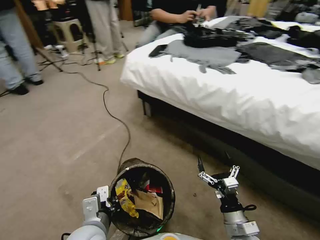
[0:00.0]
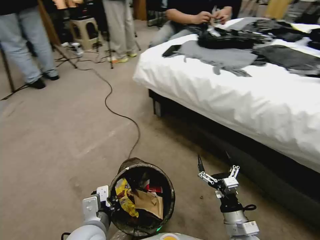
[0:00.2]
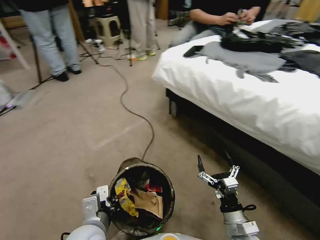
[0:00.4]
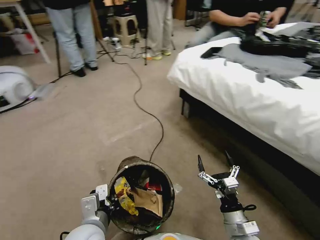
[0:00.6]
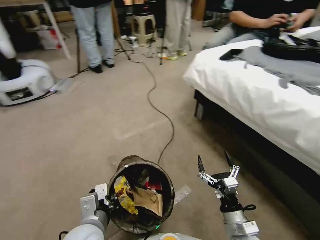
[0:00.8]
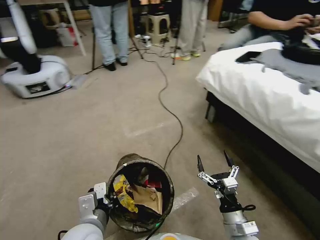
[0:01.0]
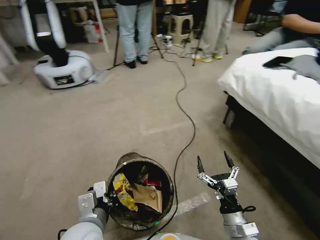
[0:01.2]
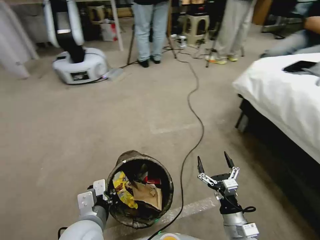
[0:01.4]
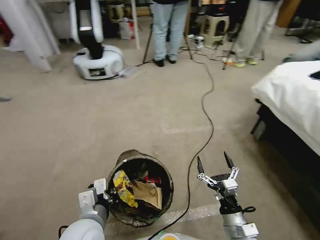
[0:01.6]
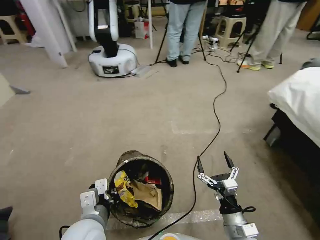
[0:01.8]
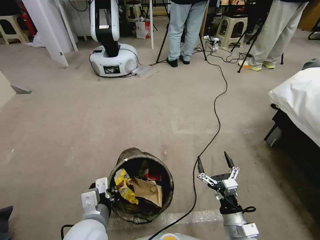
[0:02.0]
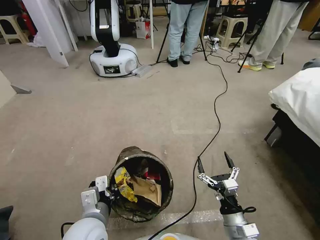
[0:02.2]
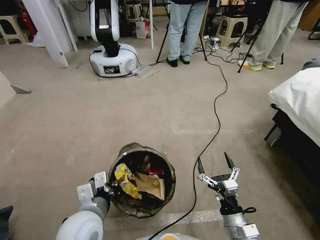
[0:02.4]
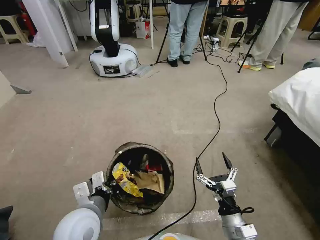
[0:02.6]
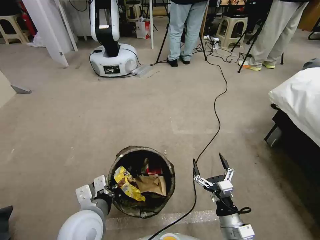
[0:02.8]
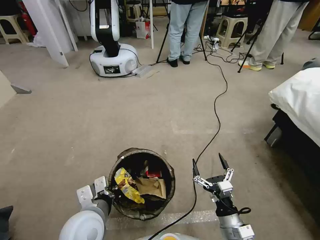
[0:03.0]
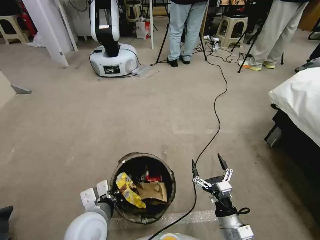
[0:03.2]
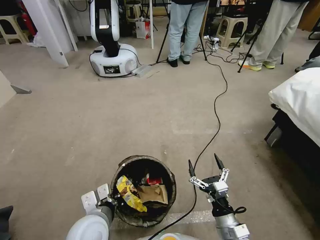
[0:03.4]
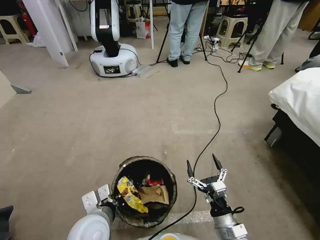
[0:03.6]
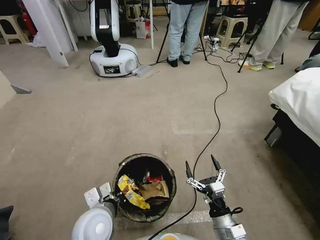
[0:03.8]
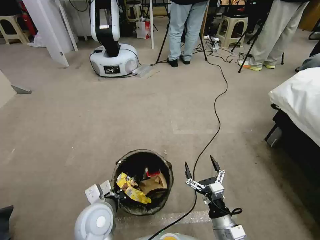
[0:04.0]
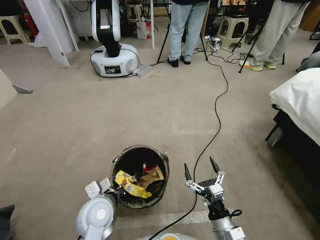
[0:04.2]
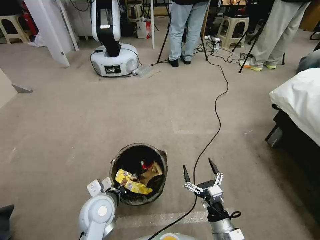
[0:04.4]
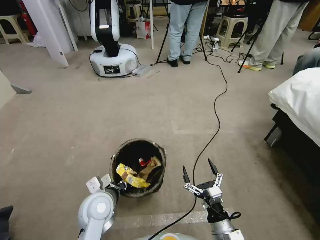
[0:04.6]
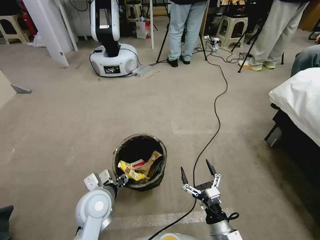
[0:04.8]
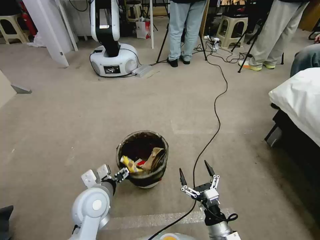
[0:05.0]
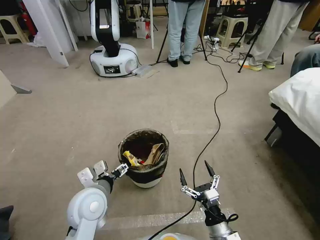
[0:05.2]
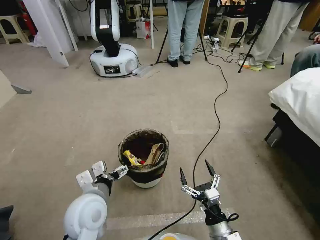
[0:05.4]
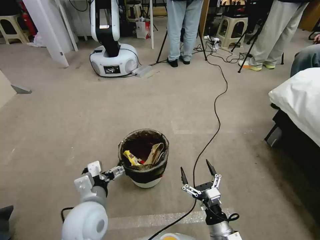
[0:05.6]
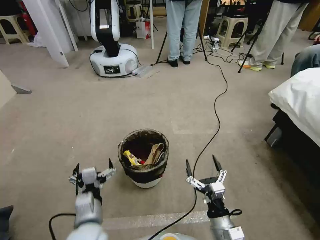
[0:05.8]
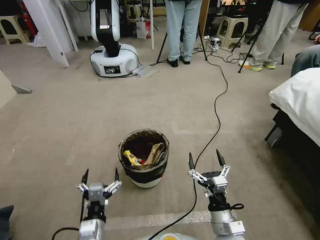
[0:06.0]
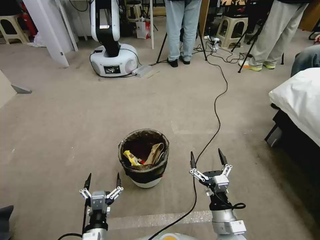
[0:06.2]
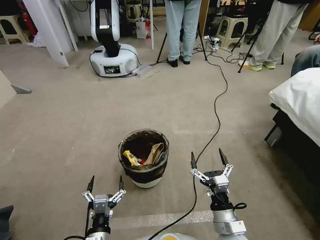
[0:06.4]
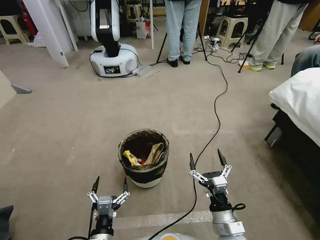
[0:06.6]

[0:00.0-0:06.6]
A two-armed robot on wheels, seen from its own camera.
Task of the whole recording: Pick up the trash bin, then pick up the garbage from the floor and place it into the trash bin.
0:03.2 to 0:05.0: The left gripper moves forward, some 5 cm, and opens.
0:05.0 to 0:06.6: The left gripper goes roughly 20 cm backward and downward.

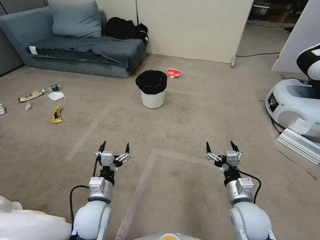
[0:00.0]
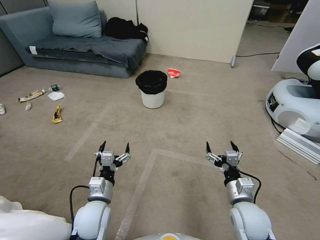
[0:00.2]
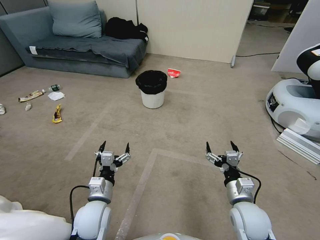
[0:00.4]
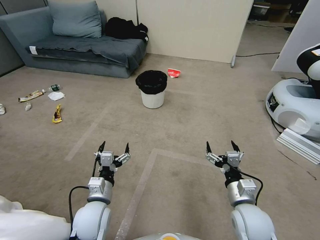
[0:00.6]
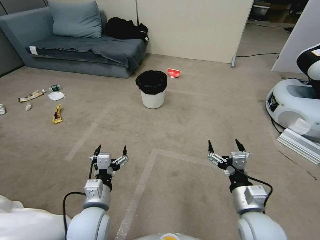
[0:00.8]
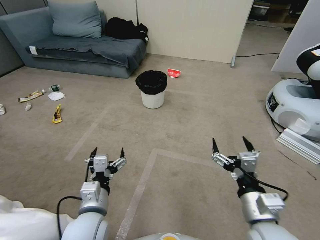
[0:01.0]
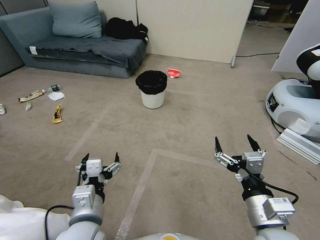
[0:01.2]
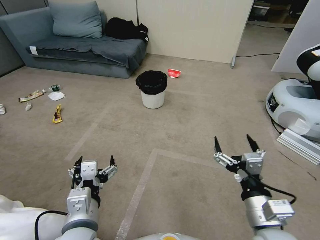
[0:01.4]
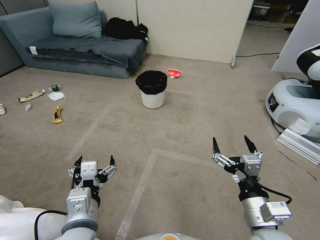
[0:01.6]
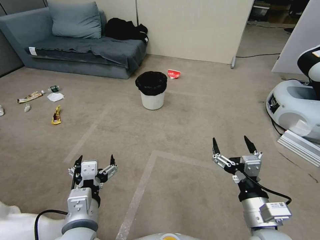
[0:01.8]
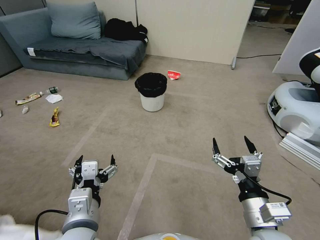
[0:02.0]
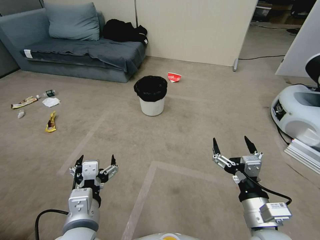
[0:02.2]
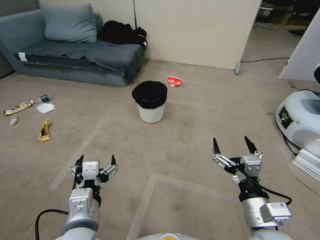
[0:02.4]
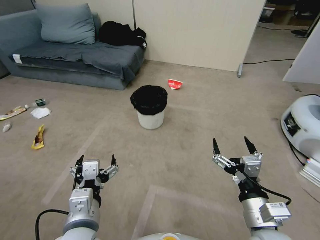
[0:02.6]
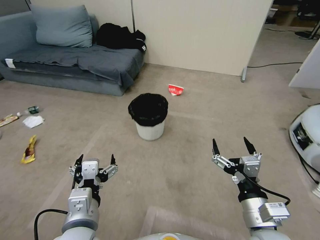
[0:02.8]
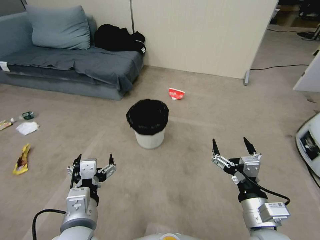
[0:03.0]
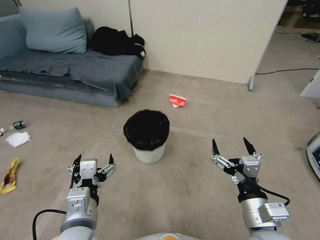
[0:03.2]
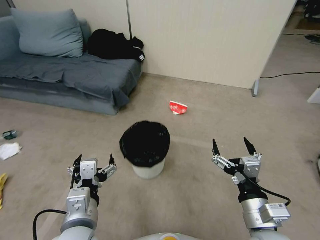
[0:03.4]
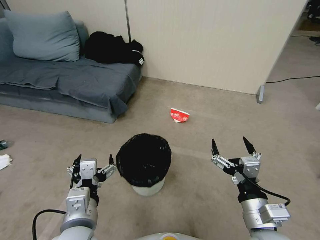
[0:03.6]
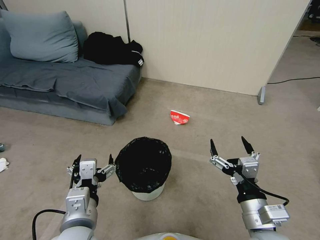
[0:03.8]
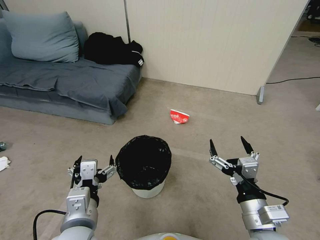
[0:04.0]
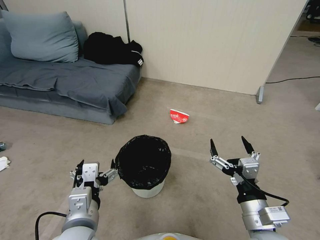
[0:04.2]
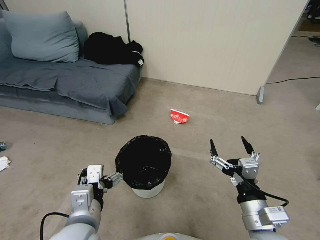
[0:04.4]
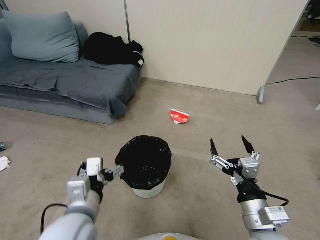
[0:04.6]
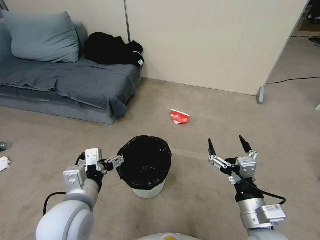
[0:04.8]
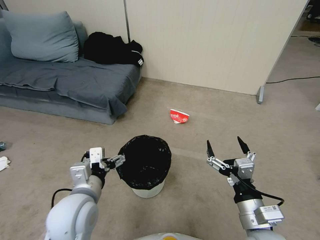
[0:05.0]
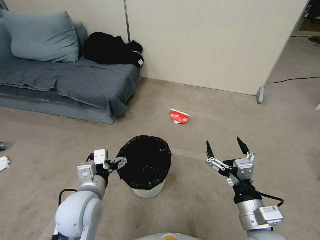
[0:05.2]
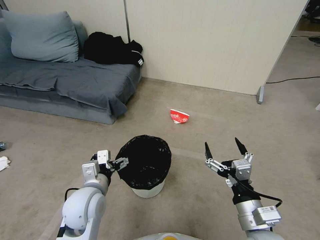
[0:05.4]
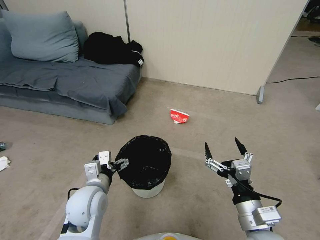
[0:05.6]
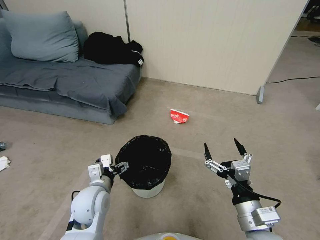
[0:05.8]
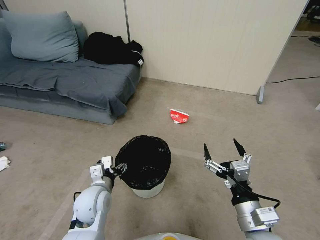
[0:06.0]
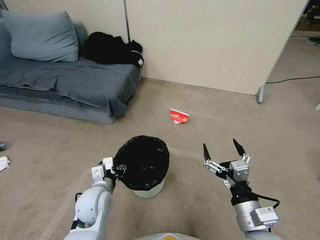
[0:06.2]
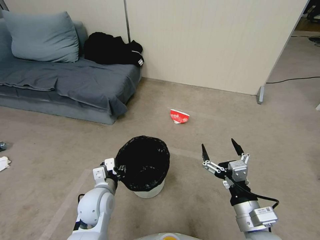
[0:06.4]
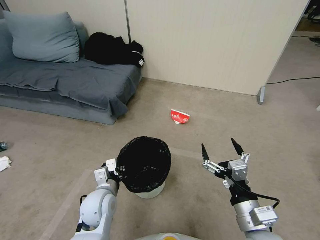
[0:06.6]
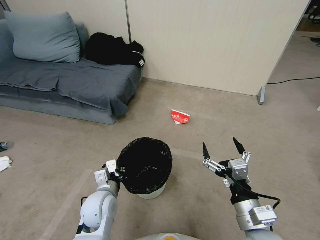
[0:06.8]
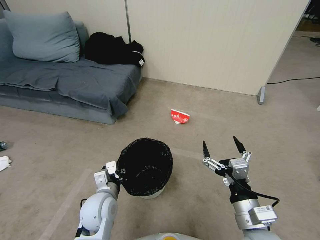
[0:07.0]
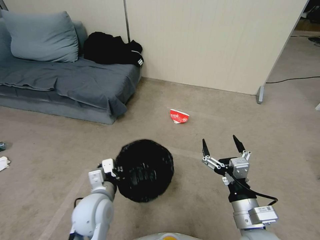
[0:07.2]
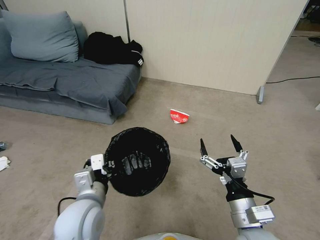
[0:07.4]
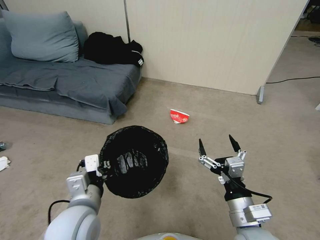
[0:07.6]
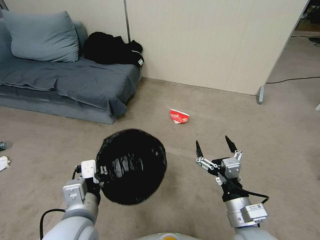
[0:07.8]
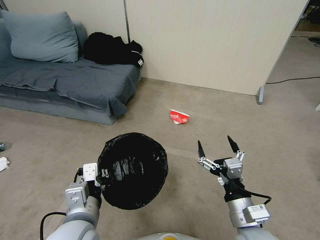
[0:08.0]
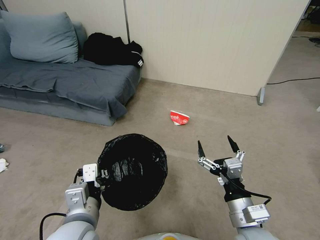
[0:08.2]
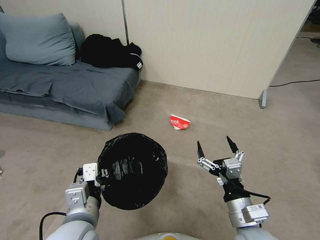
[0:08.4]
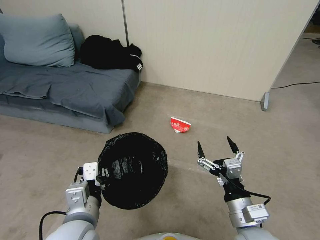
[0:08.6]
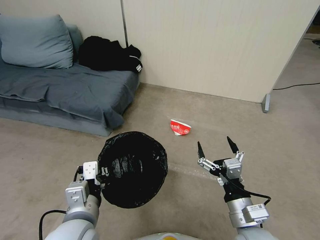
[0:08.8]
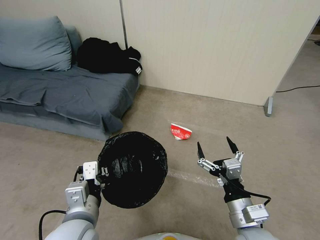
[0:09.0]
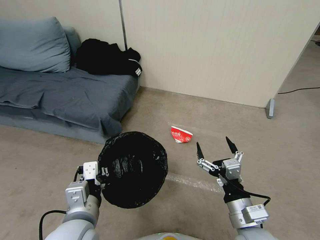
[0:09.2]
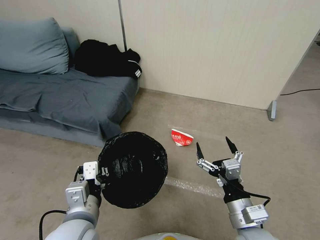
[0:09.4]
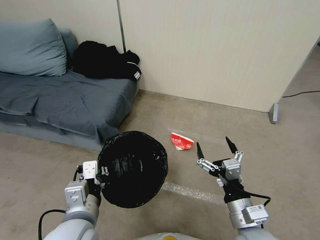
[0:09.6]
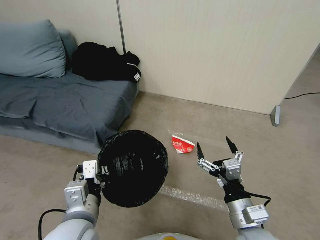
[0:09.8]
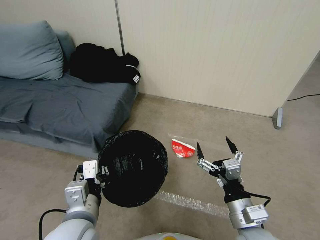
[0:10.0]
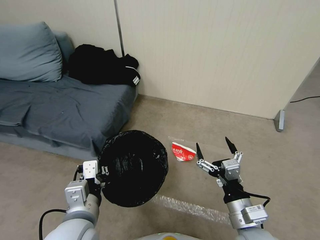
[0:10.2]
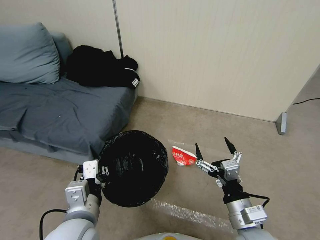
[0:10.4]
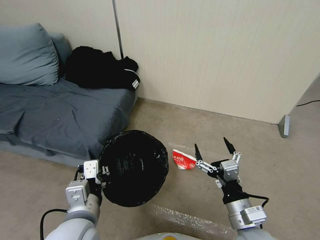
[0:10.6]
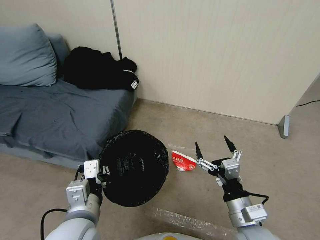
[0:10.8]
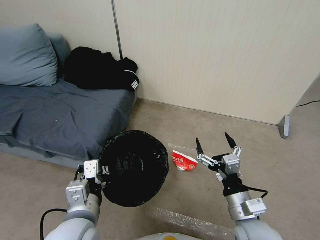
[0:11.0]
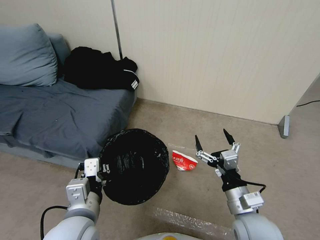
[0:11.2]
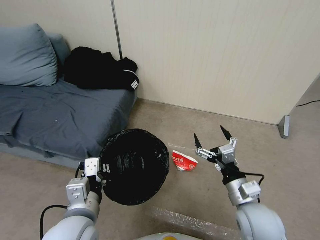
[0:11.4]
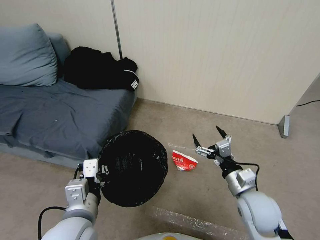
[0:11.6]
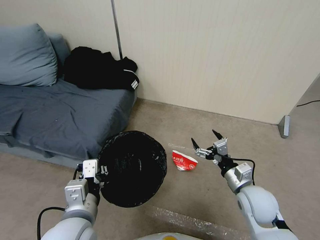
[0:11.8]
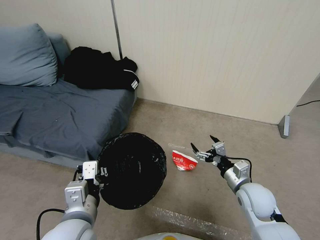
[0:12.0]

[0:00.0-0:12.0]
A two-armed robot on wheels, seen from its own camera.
Task of the whole recording: Pick up the trash bin, then pick up the garbage from the floor and place it into the trash bin.
0:04.4 to 0:06.0: The left gripper moves forward and downward, about 15 cm.
0:06.0 to 0:07.6: The left gripper travels upward and backward by some 15 cm, and closes.
0:10.4 to 0:12.0: The right gripper shifts about 15 cm forward, to the right and downward.

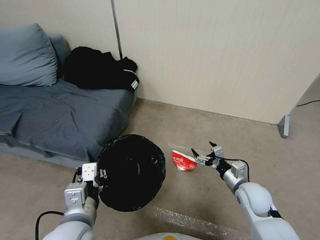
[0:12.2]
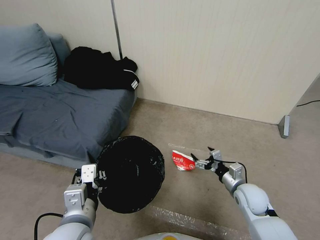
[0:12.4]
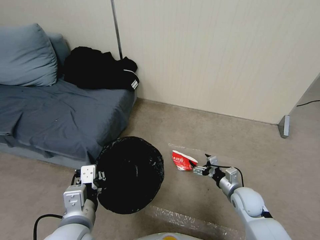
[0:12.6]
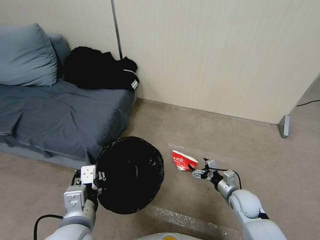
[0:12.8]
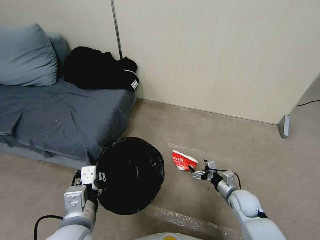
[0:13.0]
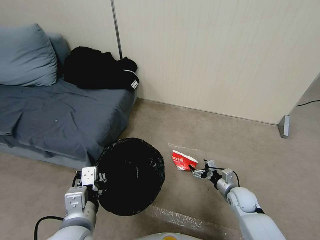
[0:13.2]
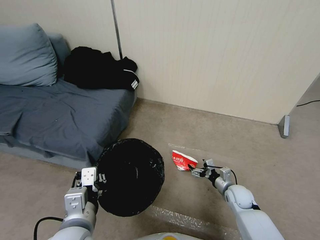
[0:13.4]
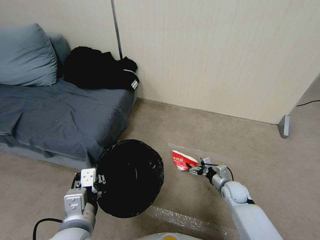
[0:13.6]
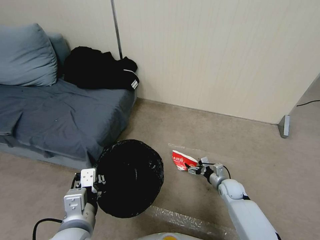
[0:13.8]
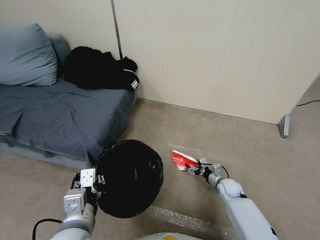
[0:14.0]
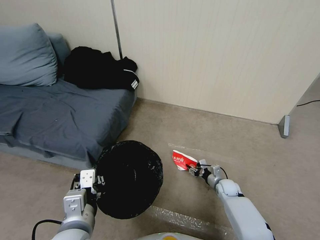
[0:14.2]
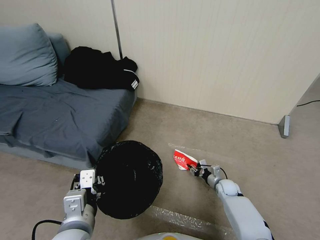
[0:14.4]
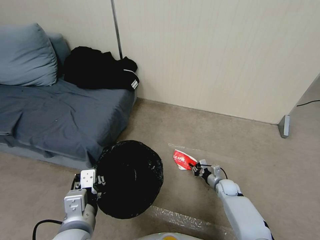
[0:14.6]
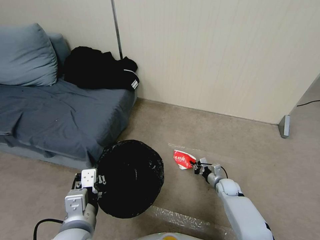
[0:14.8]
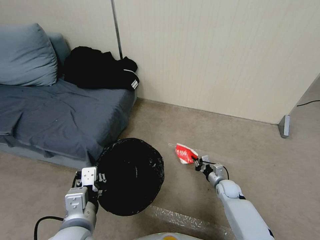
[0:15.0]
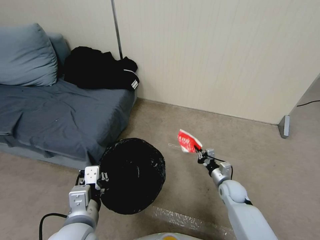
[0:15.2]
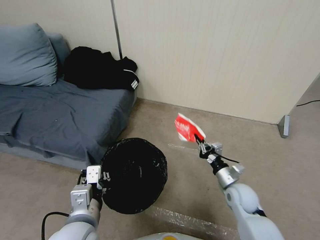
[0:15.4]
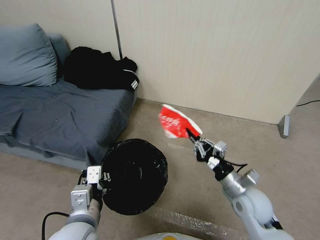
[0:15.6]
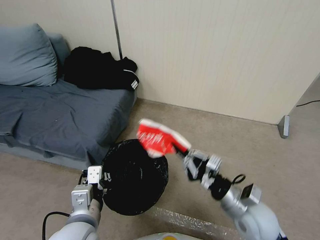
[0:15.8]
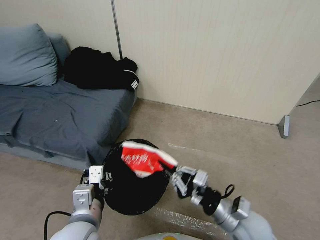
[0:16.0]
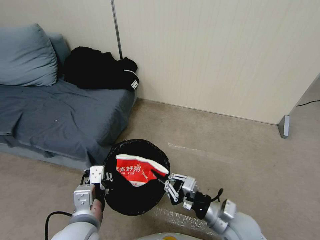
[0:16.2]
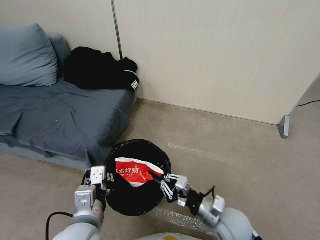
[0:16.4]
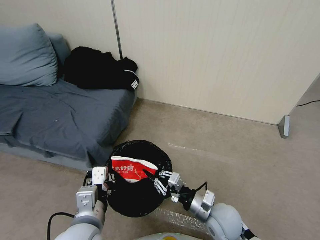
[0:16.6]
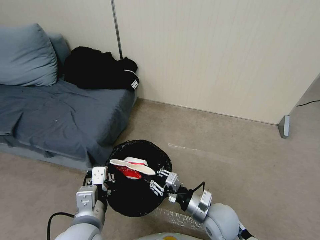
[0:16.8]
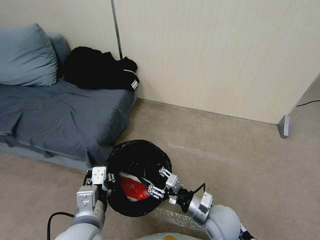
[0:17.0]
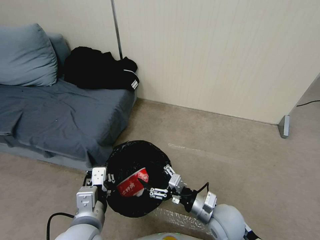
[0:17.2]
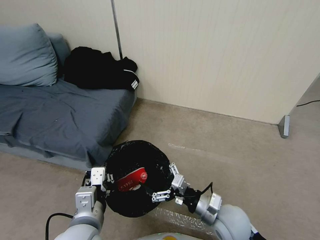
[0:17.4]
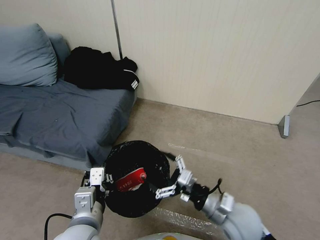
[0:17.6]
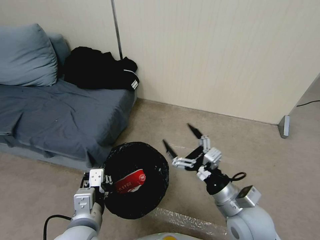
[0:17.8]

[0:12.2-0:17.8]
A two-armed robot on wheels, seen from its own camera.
Task of the whole recording: Pick up the trash bin, then pick up the garbage from the floor and place it into the trash bin.
0:12.2 to 0:13.6: The right gripper heads downward and forward, covering about 15 cm.
0:13.6 to 0:15.0: The right gripper closes up.
0:15.0 to 0:16.4: The right gripper heads upward, backward and to the left, covering approximately 25 cm.
0:16.4 to 0:17.8: The right gripper heads upward, covering some 10 cm, and opens.
